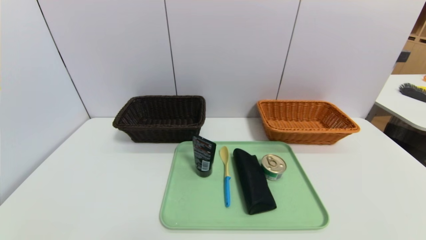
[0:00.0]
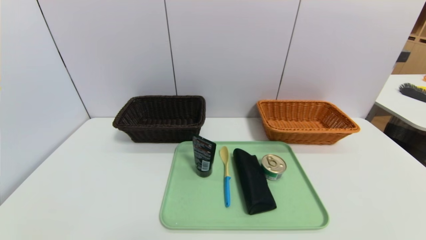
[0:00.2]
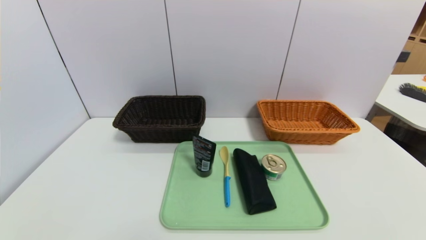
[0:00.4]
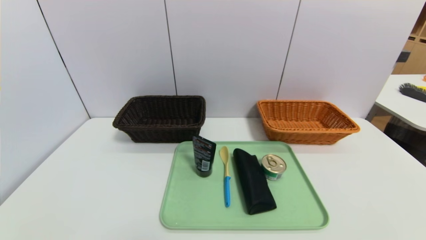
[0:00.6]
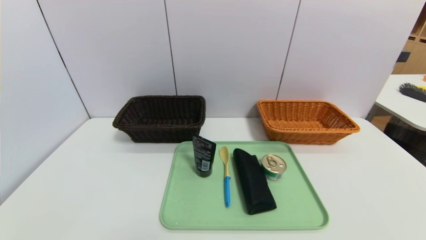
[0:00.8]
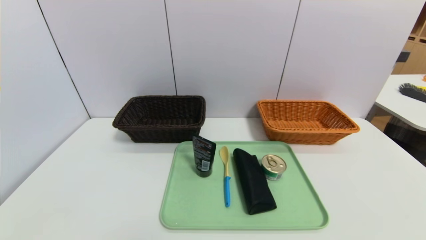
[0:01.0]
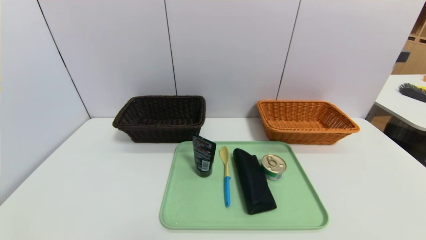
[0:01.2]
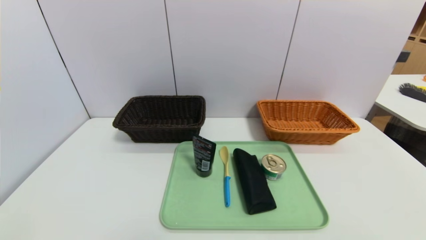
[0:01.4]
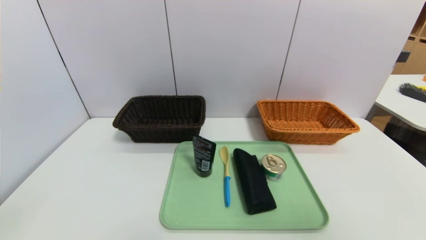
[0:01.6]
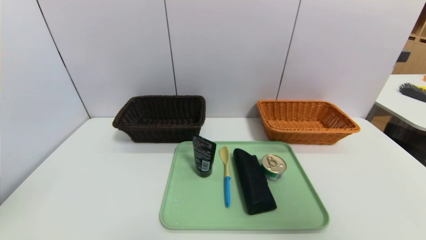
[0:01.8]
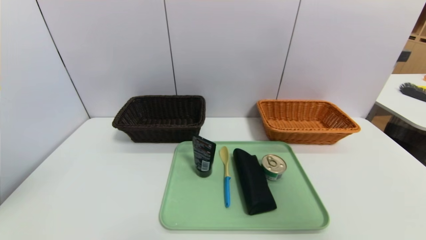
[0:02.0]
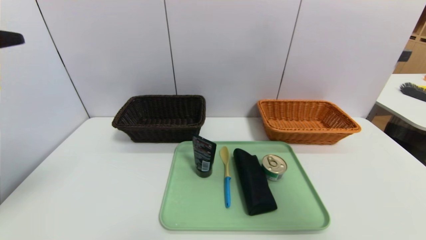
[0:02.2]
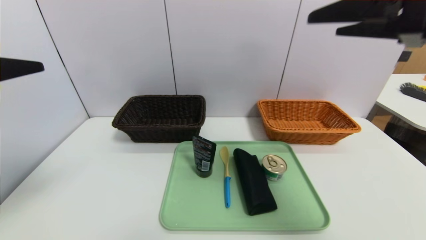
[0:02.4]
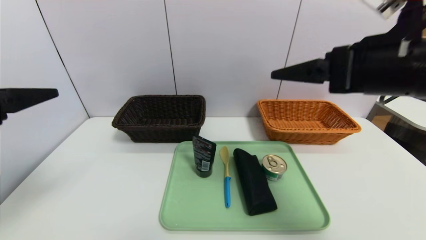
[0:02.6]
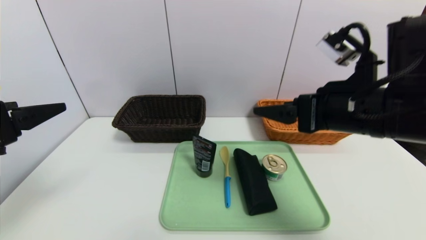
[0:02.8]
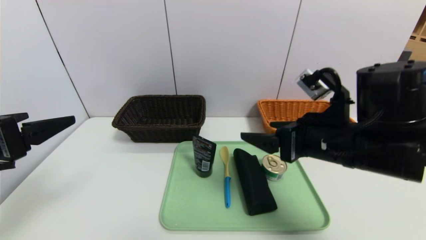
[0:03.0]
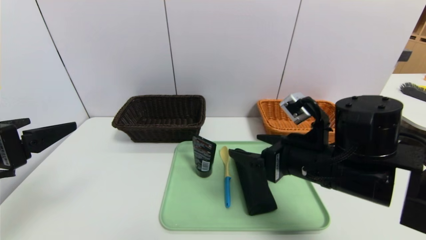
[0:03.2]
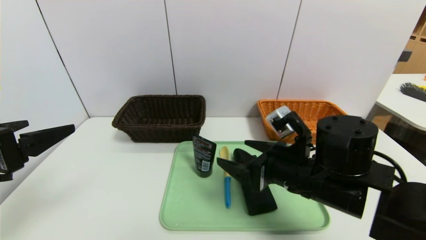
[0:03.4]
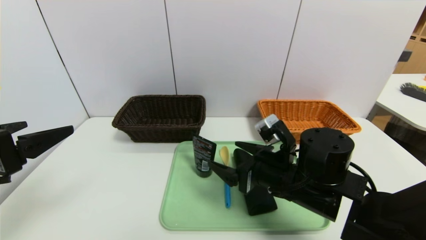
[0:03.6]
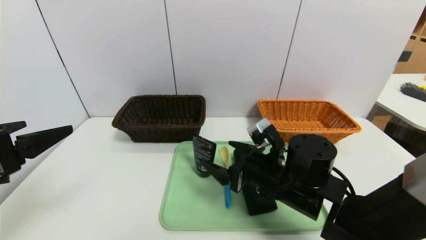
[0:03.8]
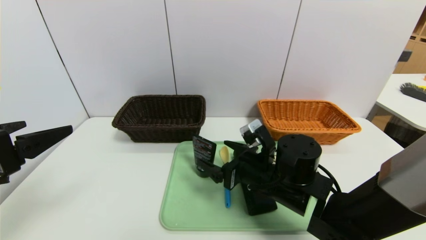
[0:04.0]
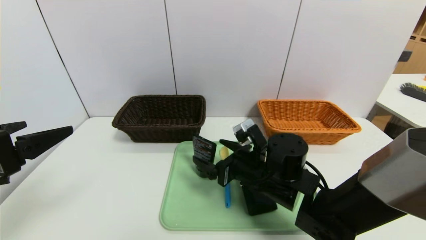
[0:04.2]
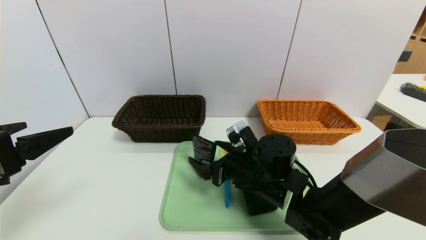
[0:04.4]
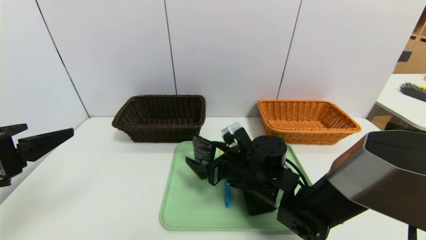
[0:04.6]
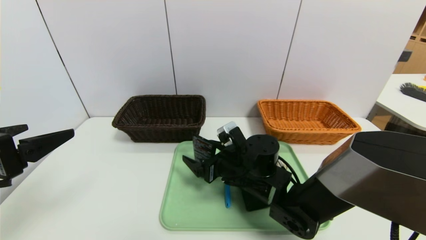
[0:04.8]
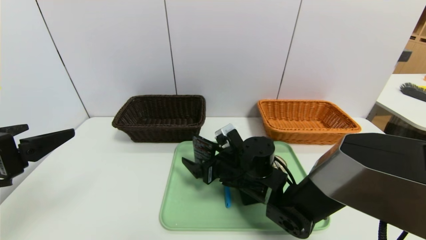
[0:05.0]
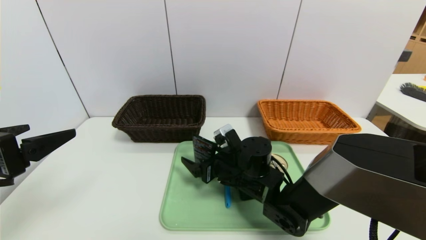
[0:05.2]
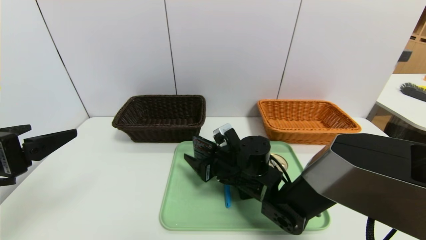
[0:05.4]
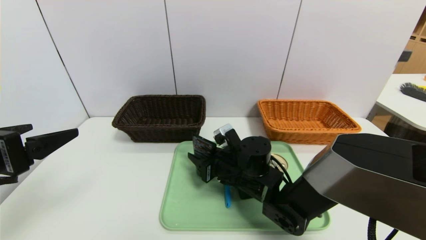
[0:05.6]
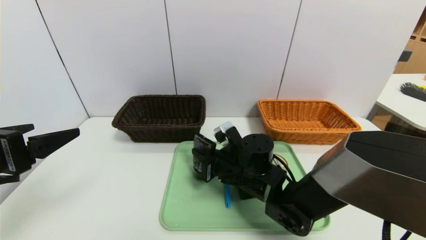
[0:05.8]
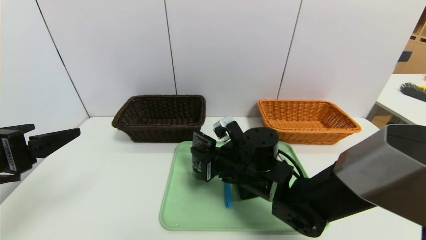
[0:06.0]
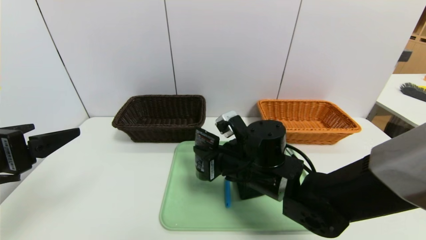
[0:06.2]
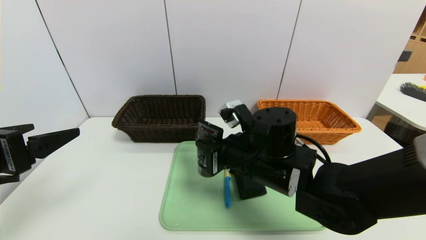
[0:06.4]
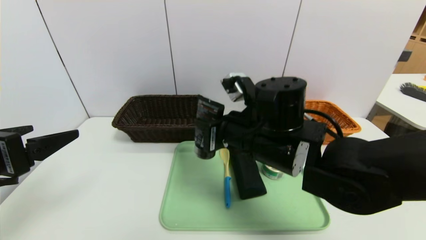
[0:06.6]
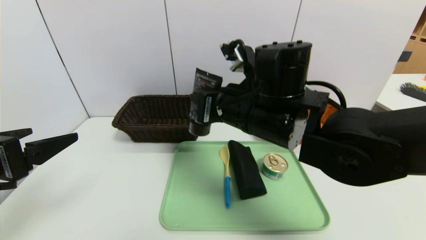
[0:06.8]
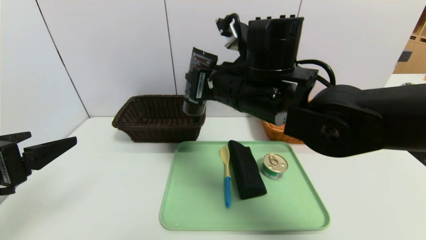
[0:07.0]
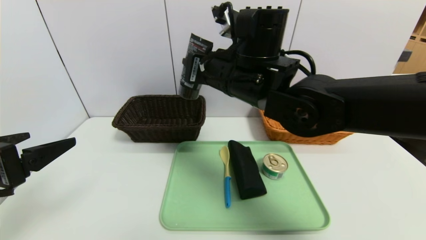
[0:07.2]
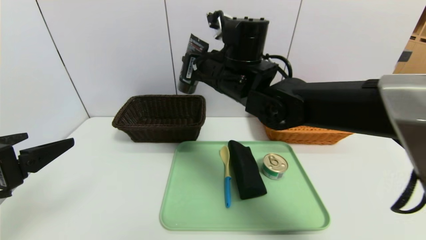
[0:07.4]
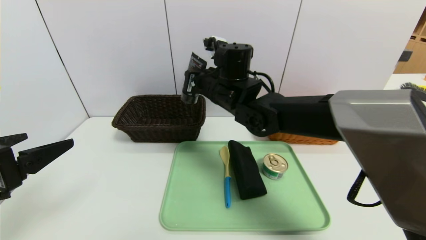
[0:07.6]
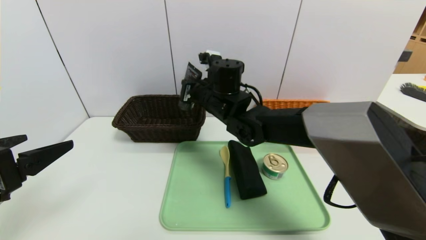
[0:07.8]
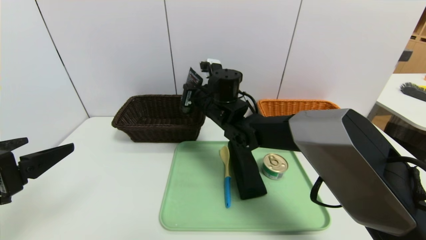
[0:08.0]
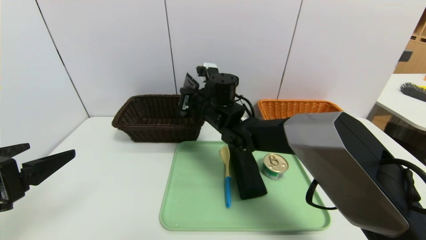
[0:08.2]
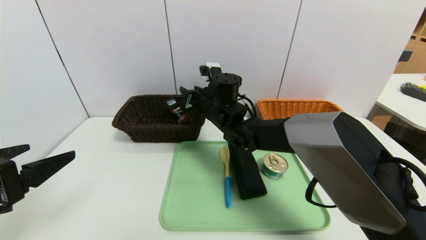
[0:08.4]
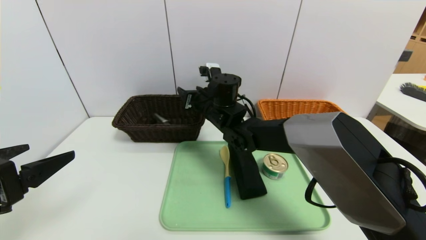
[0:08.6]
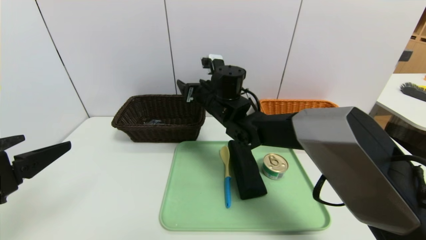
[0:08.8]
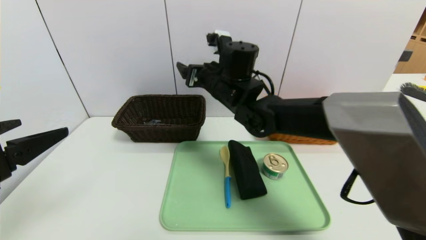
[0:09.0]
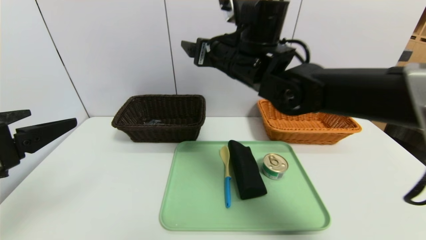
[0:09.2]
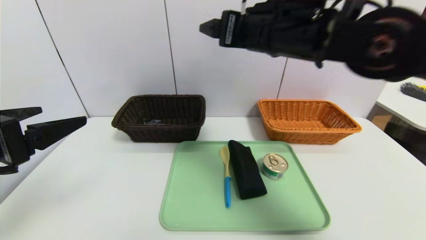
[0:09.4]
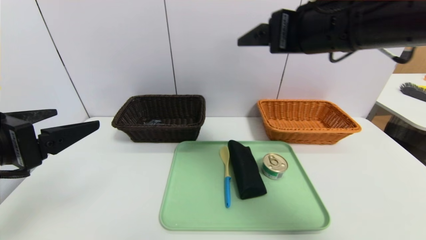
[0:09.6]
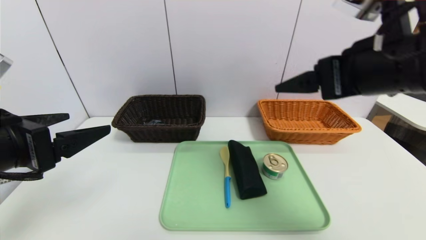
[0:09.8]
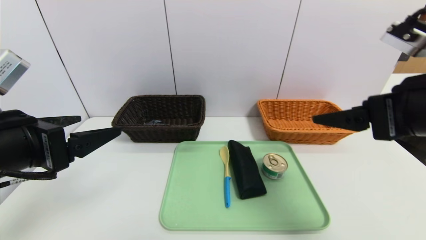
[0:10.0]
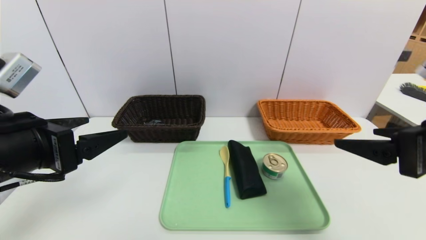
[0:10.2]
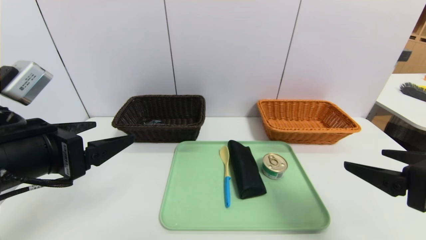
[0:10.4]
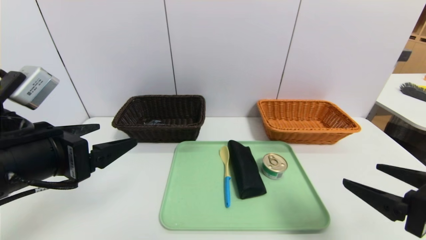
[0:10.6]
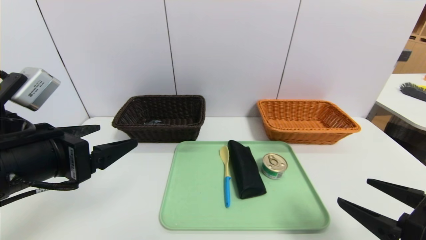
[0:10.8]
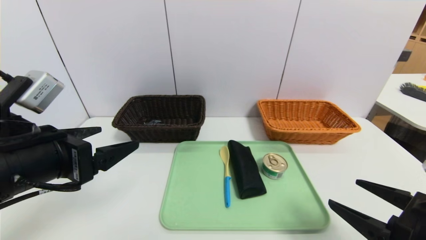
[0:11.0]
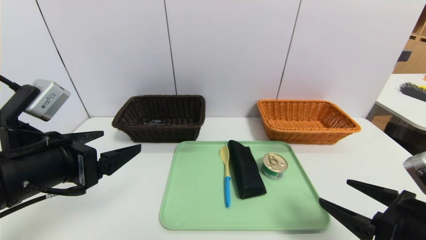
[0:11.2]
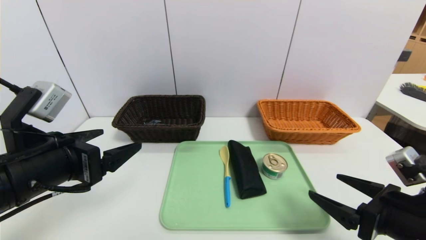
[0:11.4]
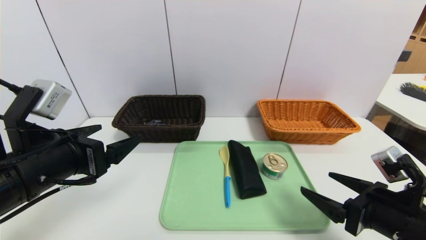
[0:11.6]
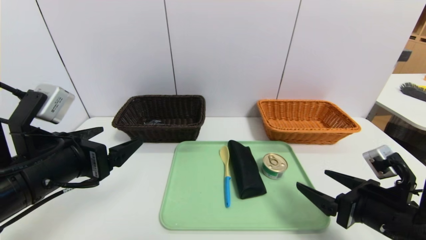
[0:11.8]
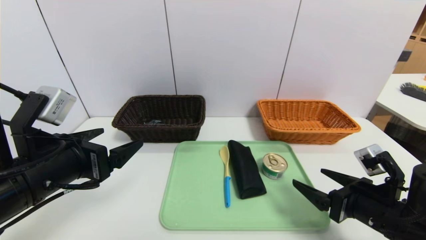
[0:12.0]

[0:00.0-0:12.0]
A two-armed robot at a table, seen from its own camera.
Task of the whole recording: place the food in the right basket with the right gripper, and place the non food items in the left basket with the left gripper.
Step, 0:00.0 to 0:08.8: Grasp the soft cleanser and put it in the left basket.
0:00.0 to 0:01.6: The right gripper goes about 35 cm upward.
0:01.6 to 0:03.0: The right gripper goes approximately 30 cm forward, downward and to the left, while the left gripper travels forward and downward by some 15 cm.
0:03.0 to 0:04.4: The right gripper is displaced downward, to the left and forward by some 15 cm.
0:04.4 to 0:06.0: The right gripper closes up.
0:06.0 to 0:07.6: The right gripper heads upward and forward, covering about 15 cm.
0:07.6 to 0:09.0: The right gripper opens its fingers.
0:09.0 to 0:10.4: The left gripper moves to the right, about 5 cm. The right gripper goes some 35 cm to the right and backward.
0:10.4 to 0:12.0: The right gripper is displaced downward and forward by some 15 cm.

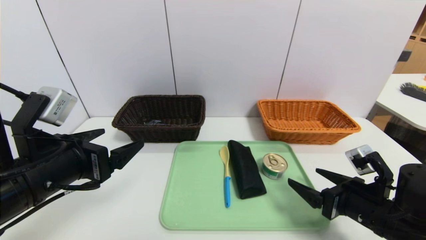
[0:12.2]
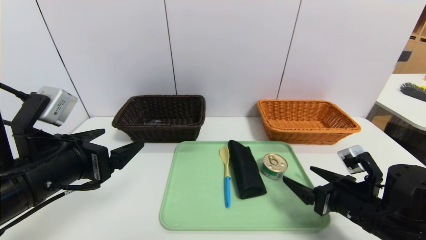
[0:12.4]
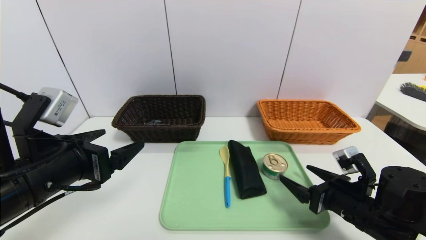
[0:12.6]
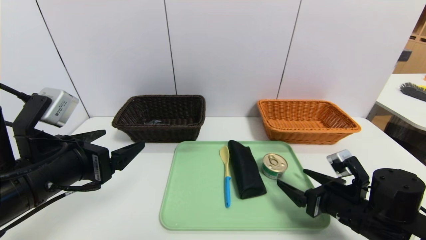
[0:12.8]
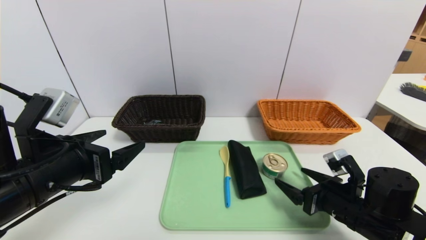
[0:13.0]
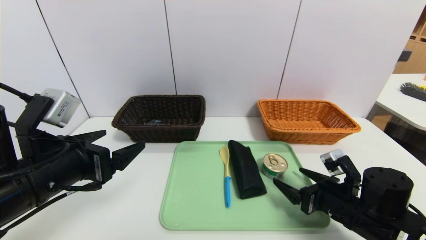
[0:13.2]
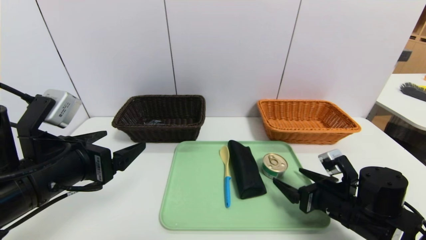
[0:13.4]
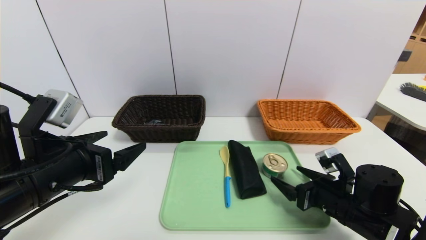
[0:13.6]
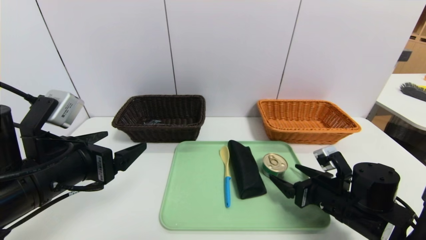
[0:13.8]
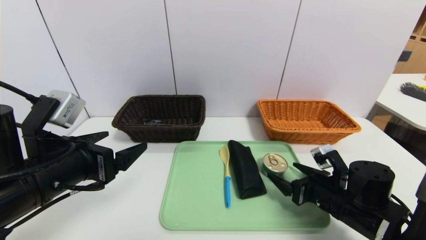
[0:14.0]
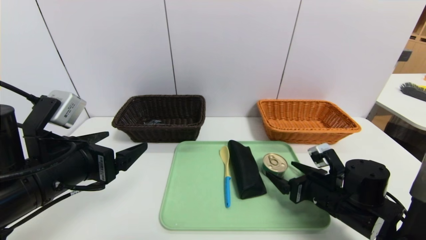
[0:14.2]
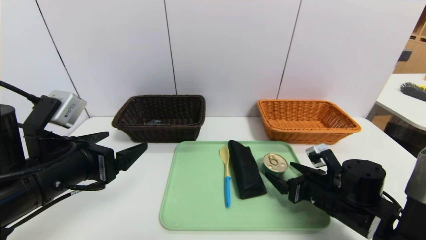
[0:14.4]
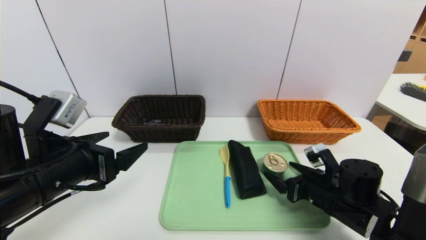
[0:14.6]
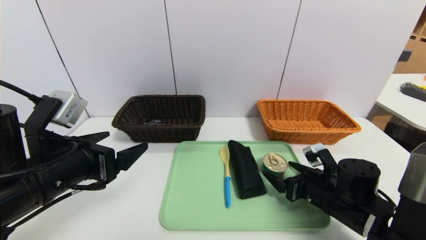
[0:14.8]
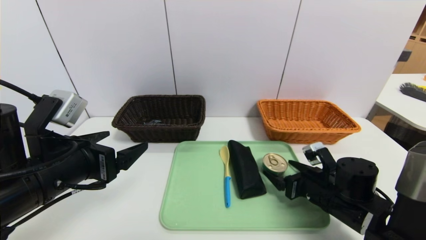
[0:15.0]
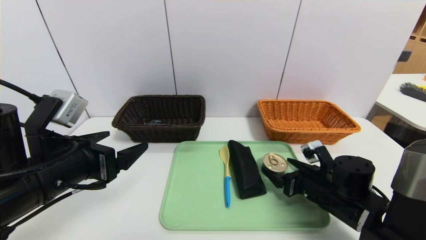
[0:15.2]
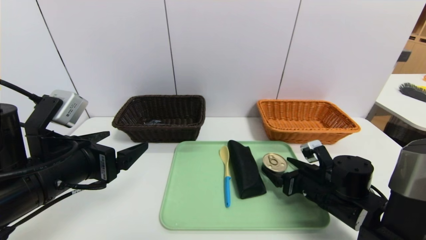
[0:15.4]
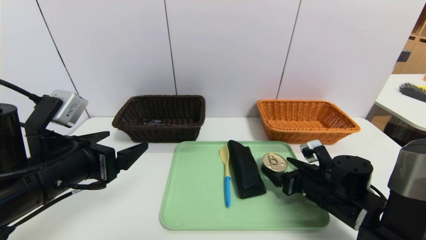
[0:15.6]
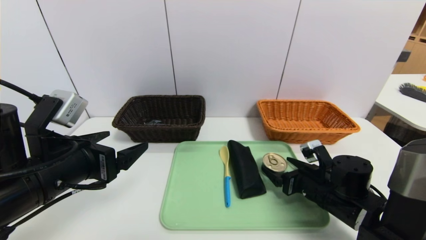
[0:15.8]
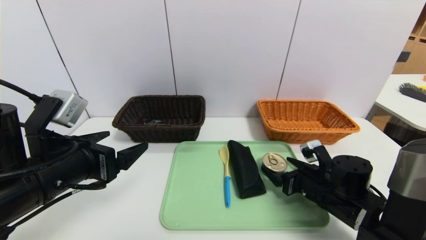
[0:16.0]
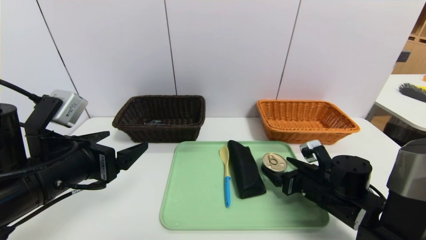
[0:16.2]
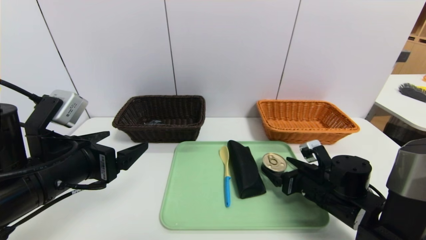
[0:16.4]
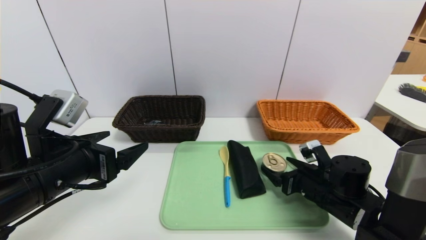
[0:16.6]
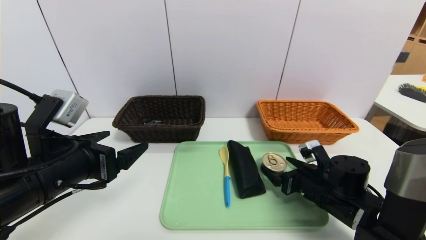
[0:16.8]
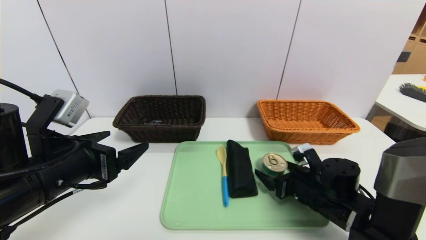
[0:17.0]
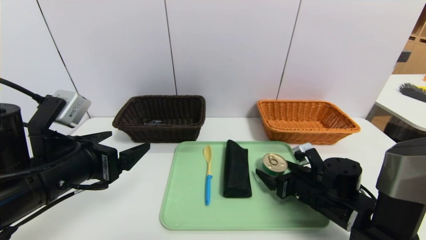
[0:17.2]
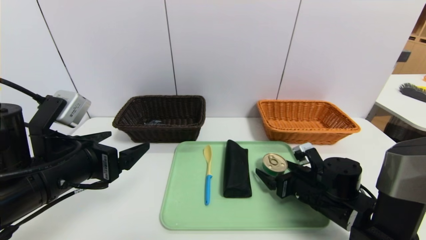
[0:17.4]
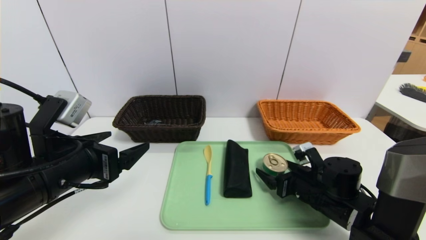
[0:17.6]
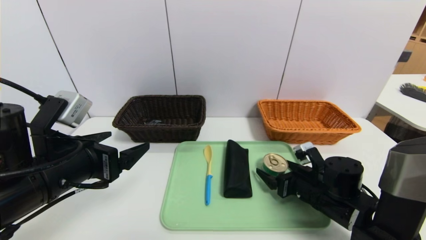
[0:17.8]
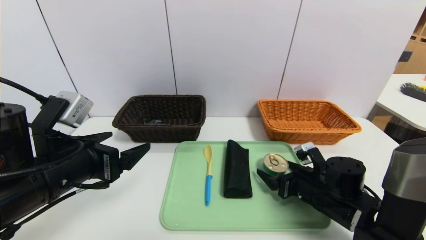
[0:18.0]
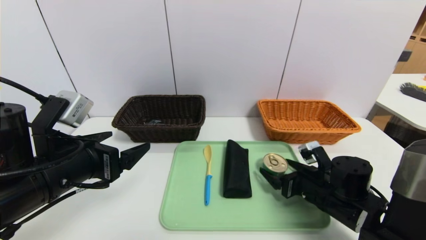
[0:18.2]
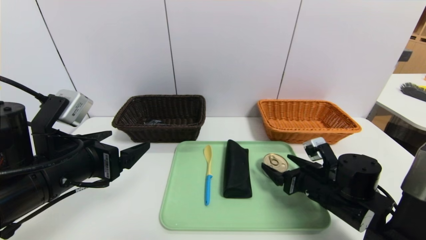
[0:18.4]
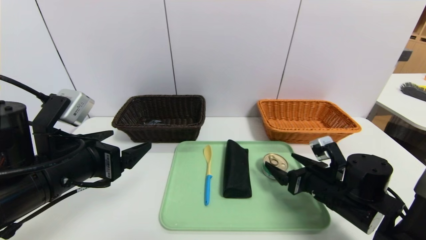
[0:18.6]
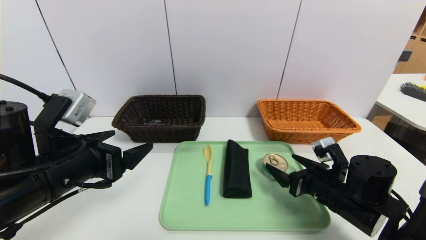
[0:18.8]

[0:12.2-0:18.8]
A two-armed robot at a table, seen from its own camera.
Task of the whole recording: place the food in the right basket with the right gripper, and place the non food items in the left basket with the left gripper.
0:12.2 to 0:13.8: The right gripper moves roughly 5 cm.
0:13.8 to 0:17.2: The grippers stay close to where they were, moving slightly.
0:17.2 to 0:18.8: The right gripper changes place by some 5 cm.
